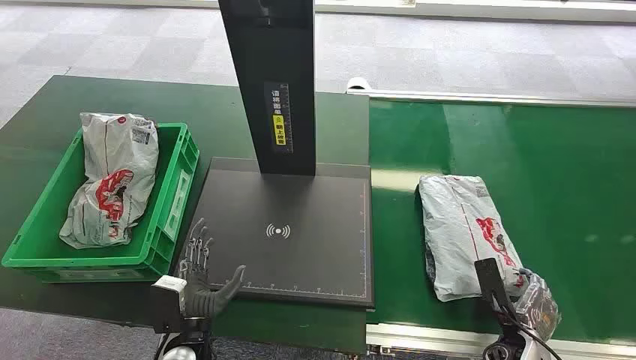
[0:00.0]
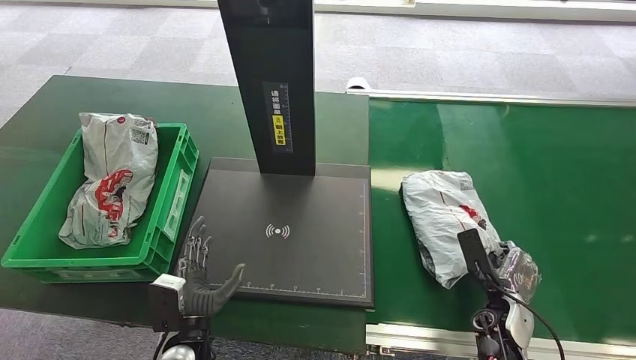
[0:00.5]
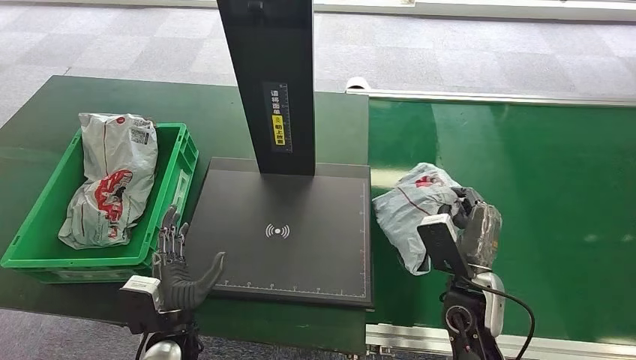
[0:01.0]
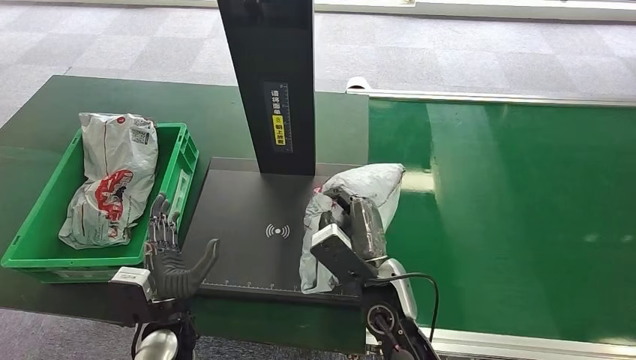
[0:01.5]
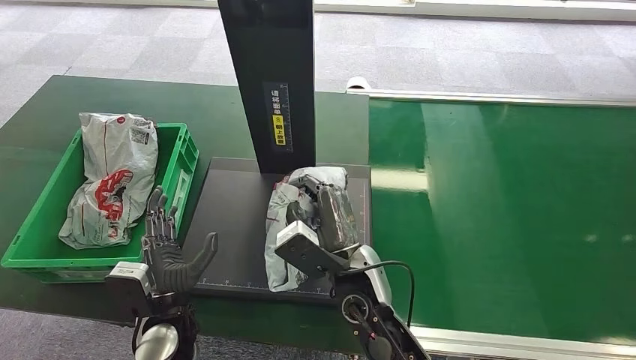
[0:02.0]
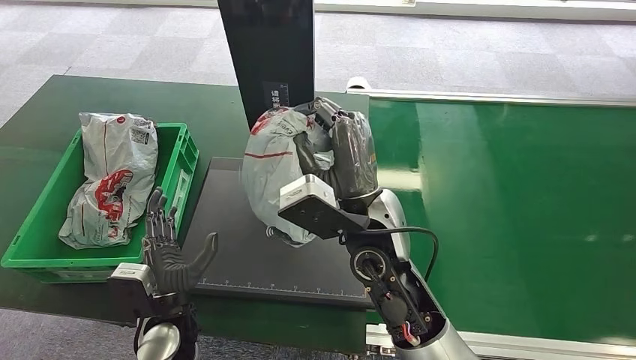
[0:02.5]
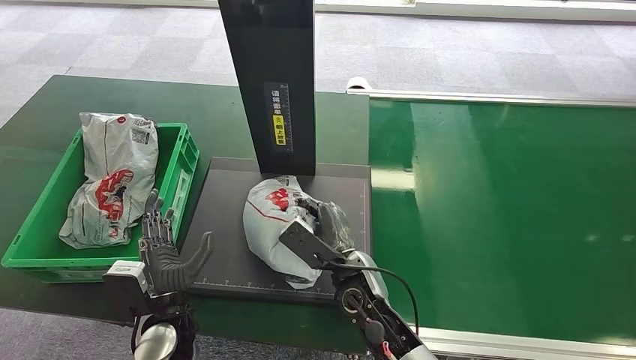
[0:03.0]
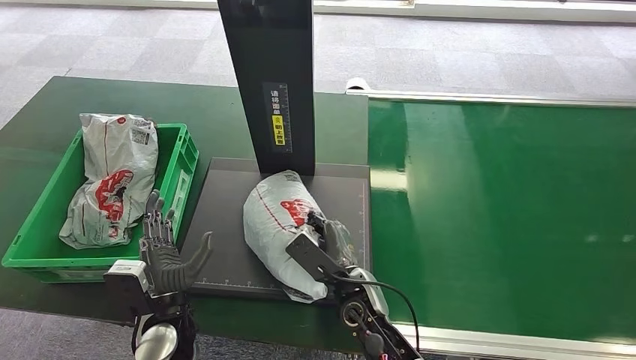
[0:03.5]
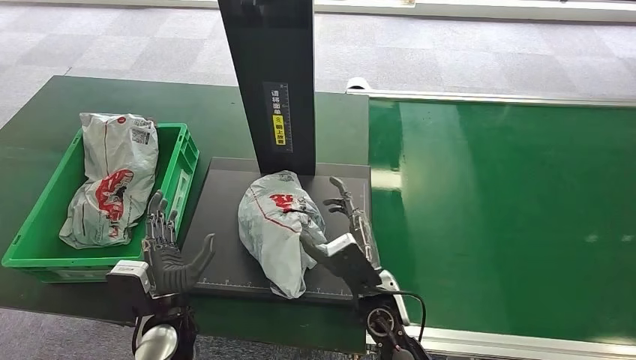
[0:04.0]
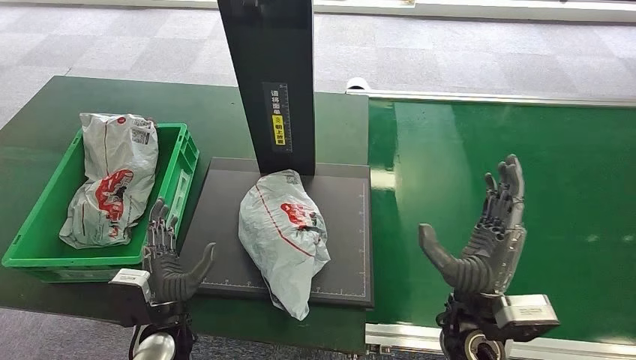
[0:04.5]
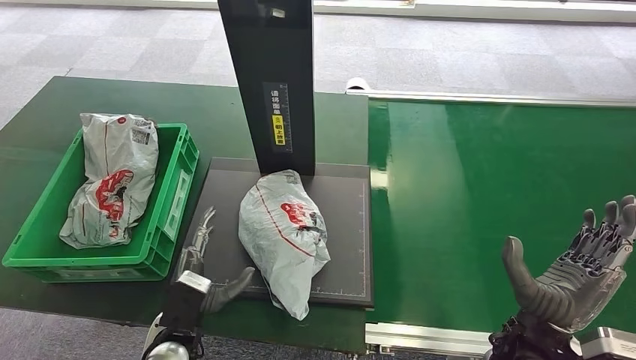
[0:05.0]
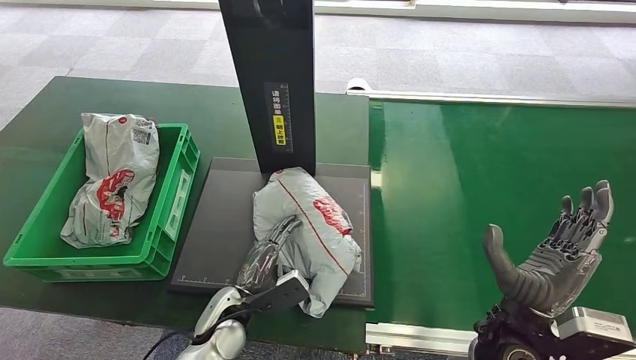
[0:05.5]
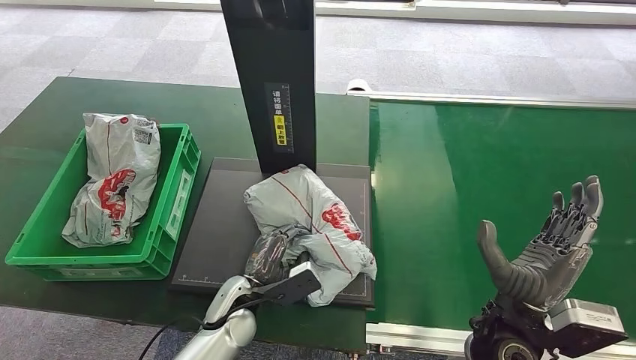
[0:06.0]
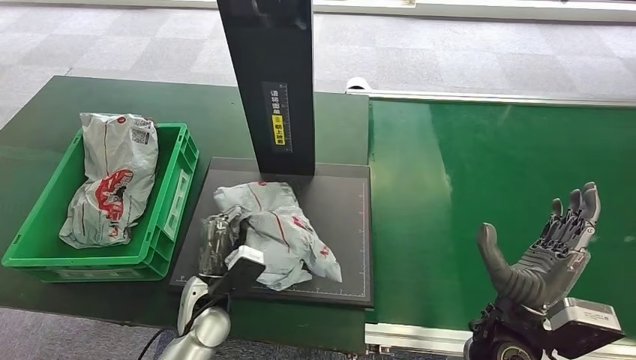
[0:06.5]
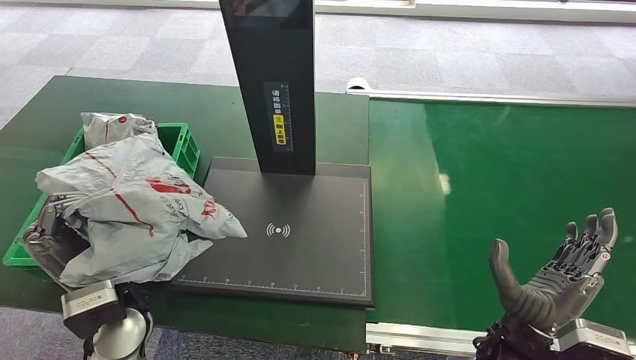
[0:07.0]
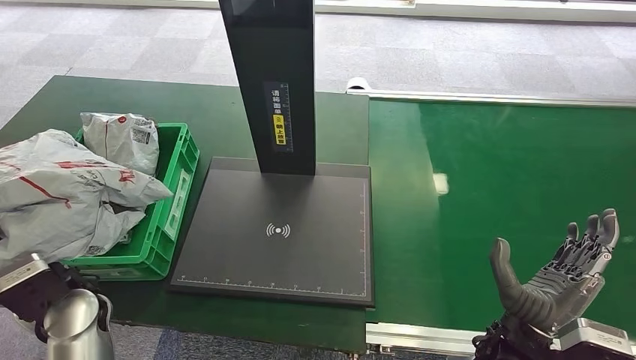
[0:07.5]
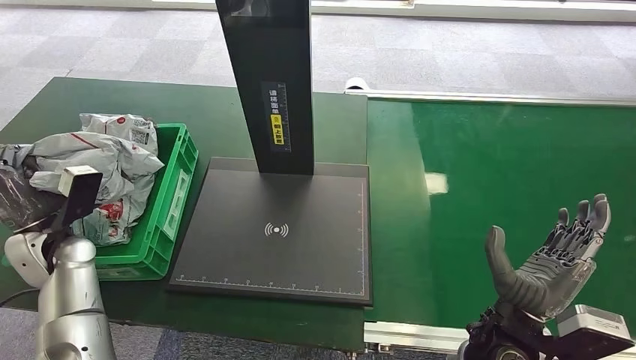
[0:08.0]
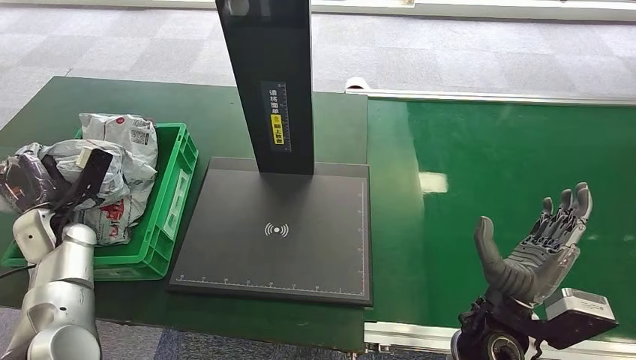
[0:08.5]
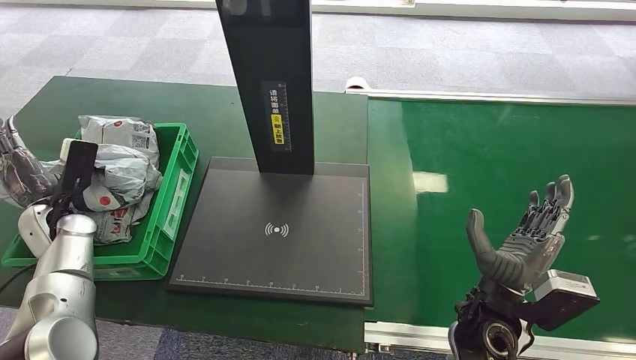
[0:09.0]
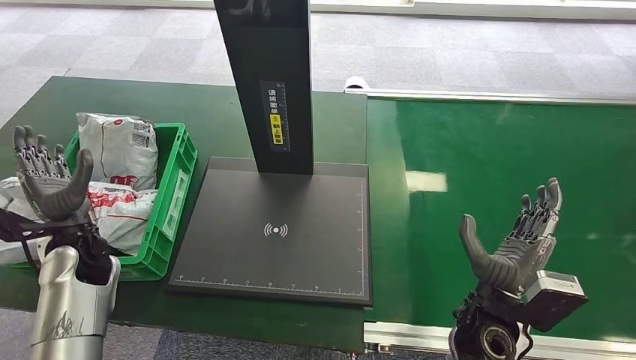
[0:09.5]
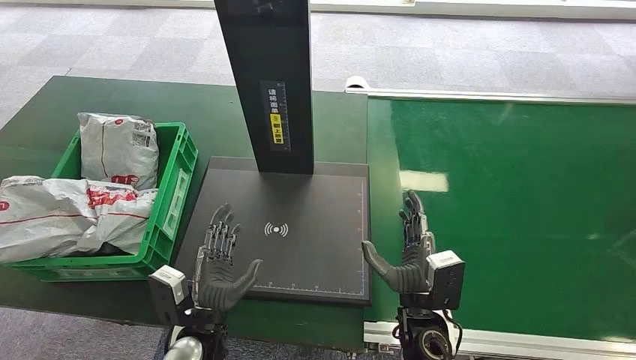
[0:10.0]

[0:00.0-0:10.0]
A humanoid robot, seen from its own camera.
Step, 0:00.0 to 0:01.0: Pick up the package from the conveyor belt.
Step, 0:01.5 to 0:05.5: Place the package onto the inbound machine.
Step, 0:06.0 to 0:07.0: Pick up the package from the inbound machine.
Step, 0:07.5 to 0:10.0: Place the package into the parcel locker.
0:02.0 to 0:04.0: The right hand moves up and down over roughly 20 cm, changing direction 2 times.
